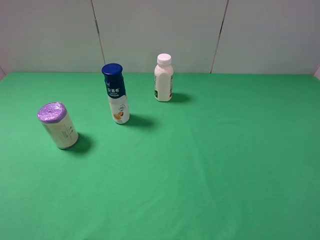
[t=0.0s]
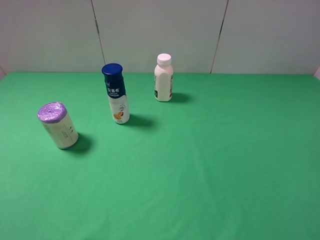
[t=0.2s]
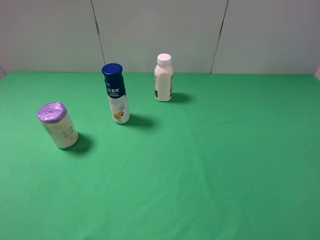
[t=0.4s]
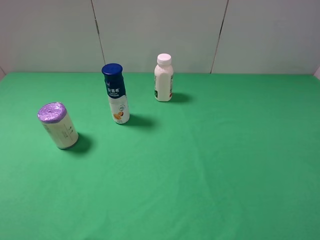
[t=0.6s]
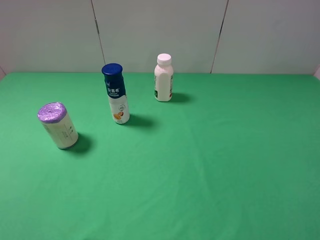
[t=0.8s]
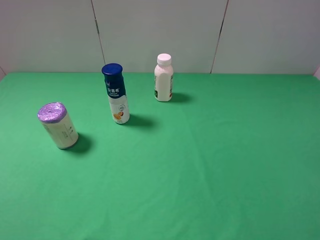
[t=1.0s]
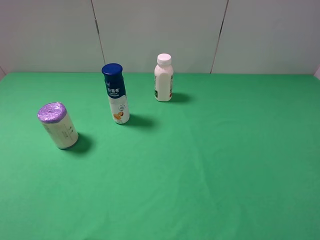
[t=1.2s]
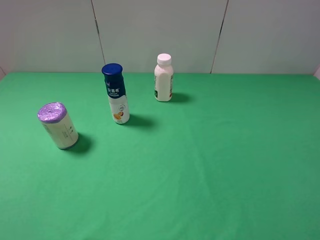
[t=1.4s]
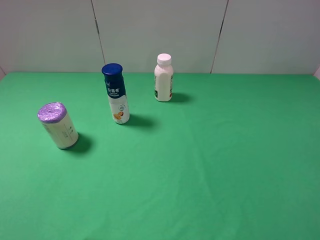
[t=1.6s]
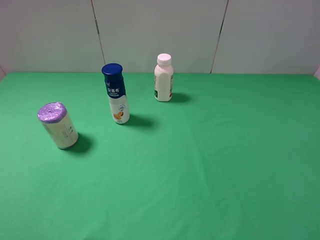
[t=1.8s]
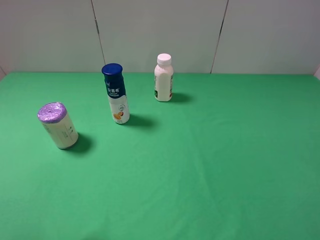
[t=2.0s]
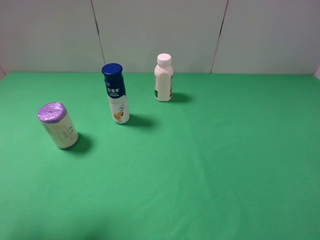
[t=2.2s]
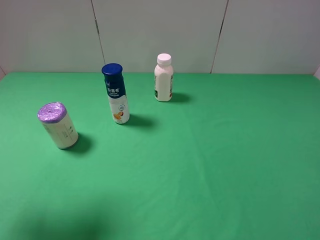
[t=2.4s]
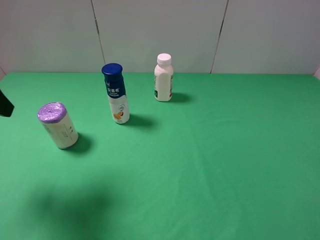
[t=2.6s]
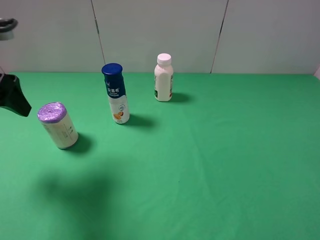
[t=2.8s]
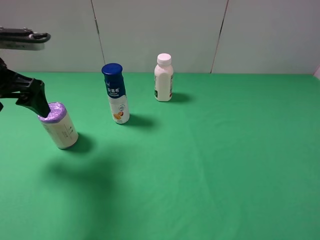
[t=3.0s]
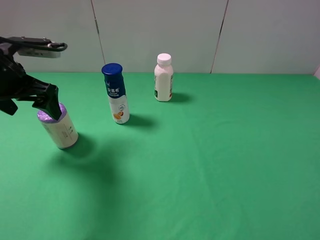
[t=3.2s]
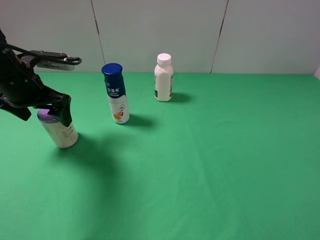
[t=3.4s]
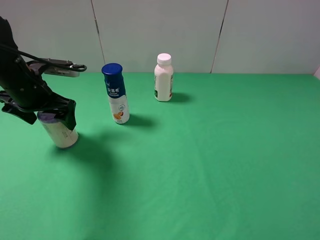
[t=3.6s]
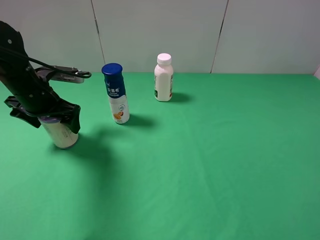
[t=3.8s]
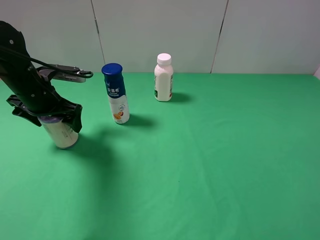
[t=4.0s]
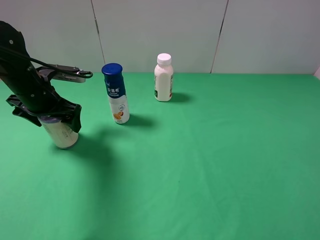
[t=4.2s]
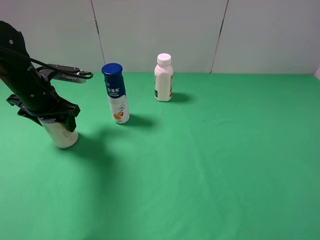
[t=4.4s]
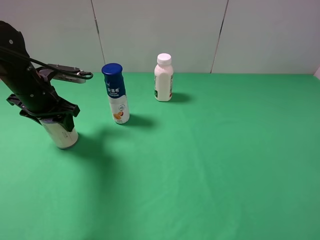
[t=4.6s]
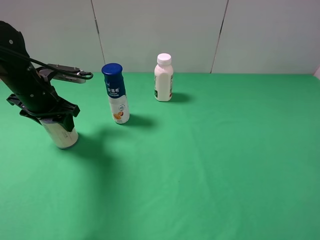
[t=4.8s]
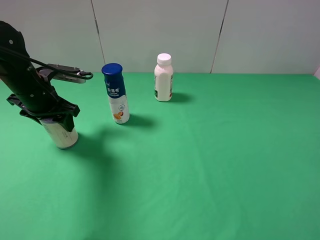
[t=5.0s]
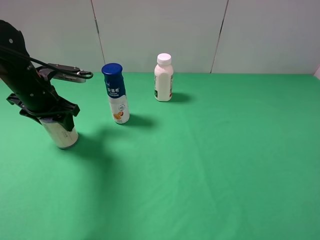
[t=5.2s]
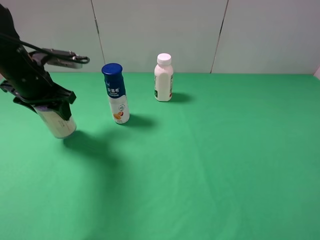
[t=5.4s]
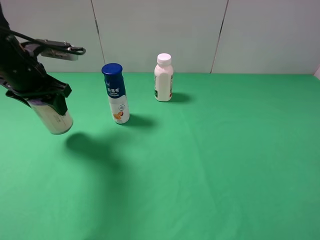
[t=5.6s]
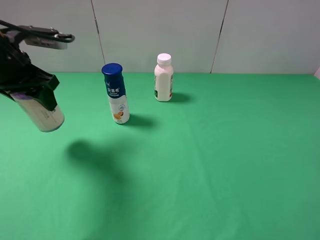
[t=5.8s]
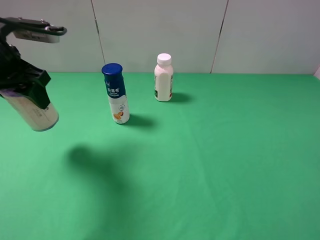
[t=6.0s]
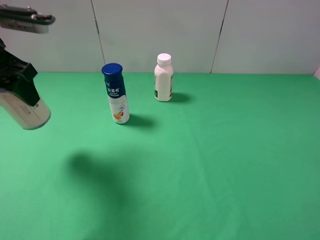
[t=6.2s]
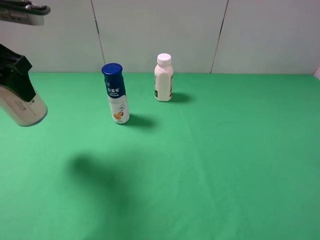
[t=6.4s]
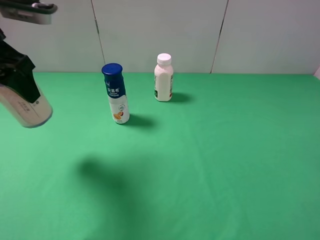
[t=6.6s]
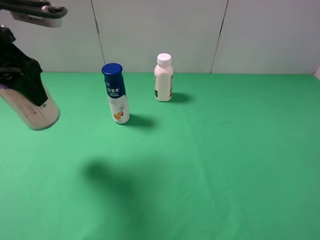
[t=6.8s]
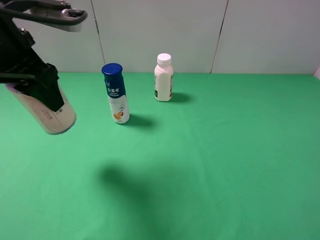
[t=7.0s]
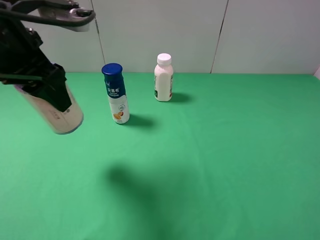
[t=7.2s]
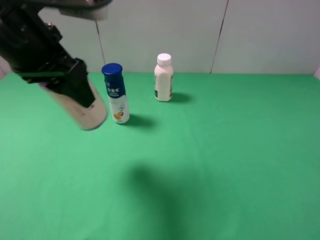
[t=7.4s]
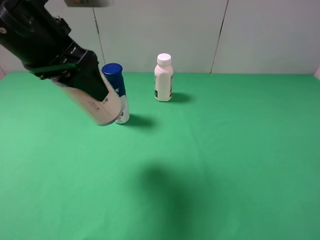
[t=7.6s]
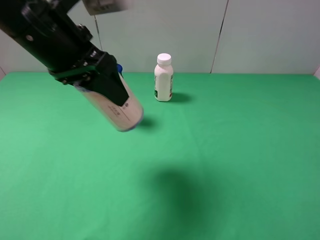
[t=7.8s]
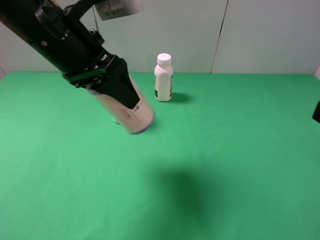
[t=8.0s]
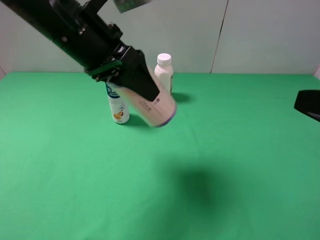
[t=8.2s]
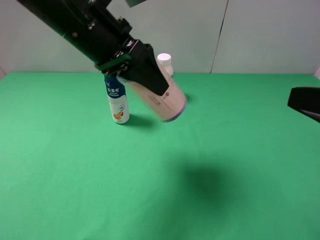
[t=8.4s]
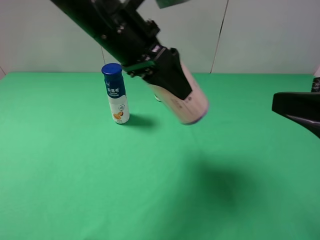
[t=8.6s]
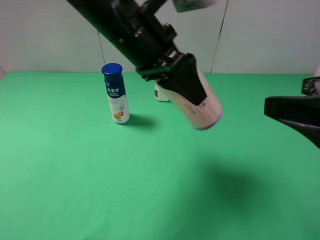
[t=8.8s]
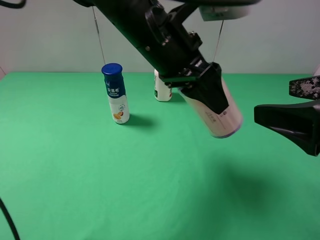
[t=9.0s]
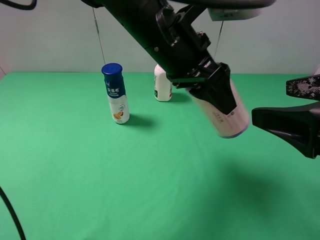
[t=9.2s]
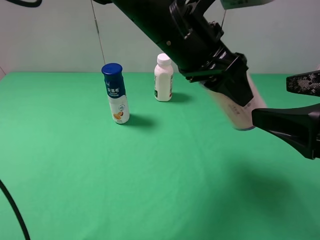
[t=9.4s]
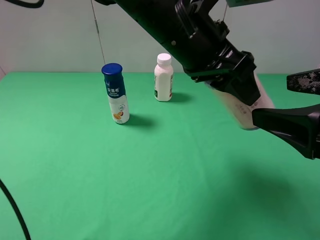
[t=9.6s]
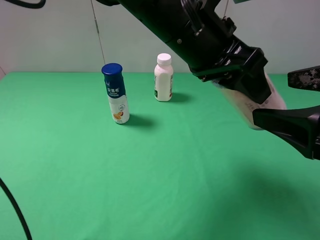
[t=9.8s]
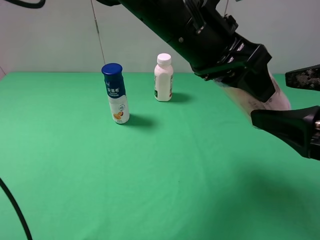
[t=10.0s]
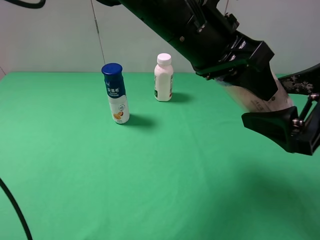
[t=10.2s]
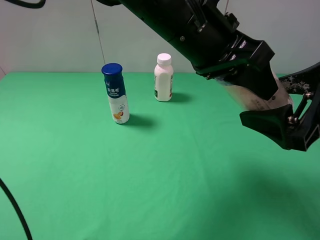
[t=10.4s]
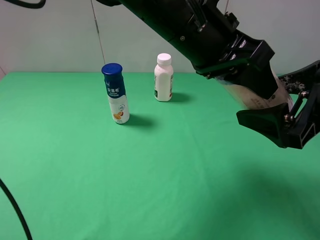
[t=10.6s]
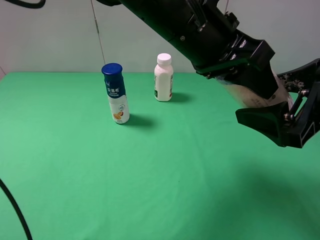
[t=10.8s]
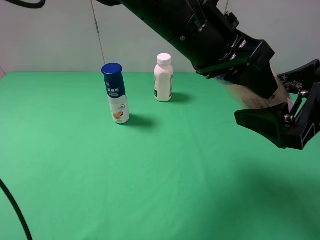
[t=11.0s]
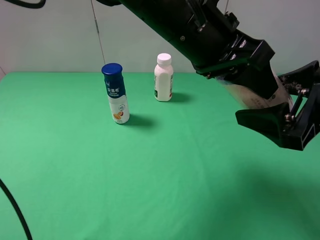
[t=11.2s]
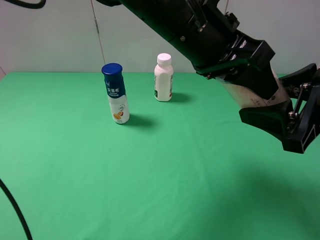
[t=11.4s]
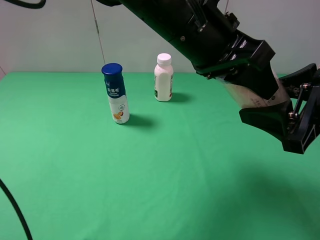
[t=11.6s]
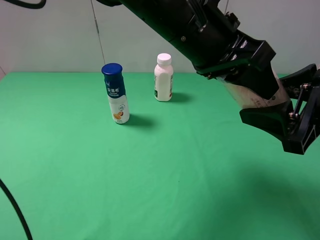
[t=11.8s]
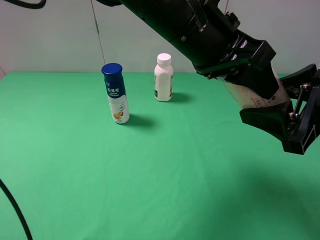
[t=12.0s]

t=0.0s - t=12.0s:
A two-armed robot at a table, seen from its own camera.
Task of the whole recording: use the left gripper to pick up the item and transfer it from the left gripper to the right gripper.
Step, t=0.0s - t=4.4s: Use the left gripper to grab the purple garbage bag on the left side of the table.
t=1.6s - t=3.0s: The left gripper moves forward, some 25 cm.
t=3.0s - t=4.4s: The left gripper goes approximately 10 cm downward and forward, and closes.
t=4.4s - t=6.0s: The left gripper moves upward, roughly 10 cm.
t=6.0s - t=7.6s: The left gripper goes approximately 10 cm to the right.
t=7.6s - t=9.0s: The left gripper heads to the right, covering roughly 15 cm. The right gripper shifts about 10 cm forward.
t=10.4s - t=12.0s: The right gripper closes its fingers.

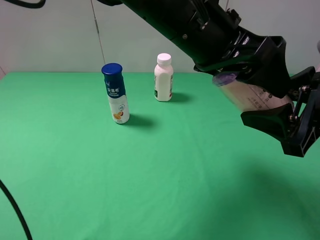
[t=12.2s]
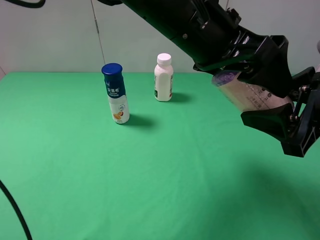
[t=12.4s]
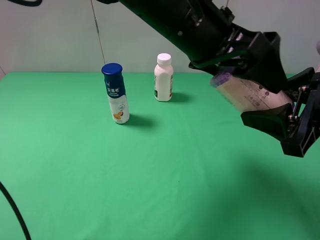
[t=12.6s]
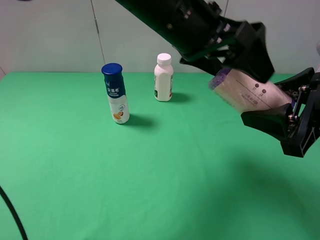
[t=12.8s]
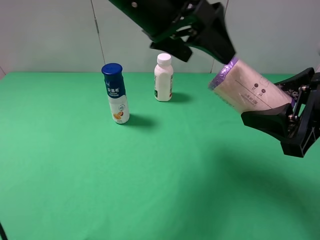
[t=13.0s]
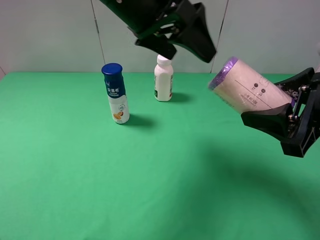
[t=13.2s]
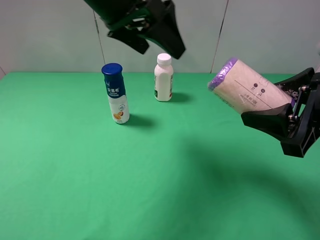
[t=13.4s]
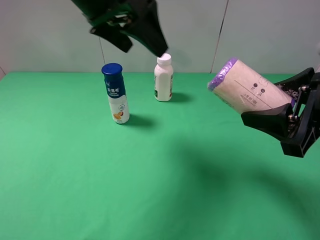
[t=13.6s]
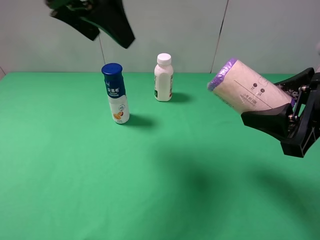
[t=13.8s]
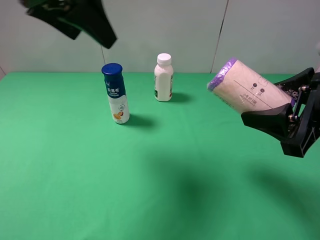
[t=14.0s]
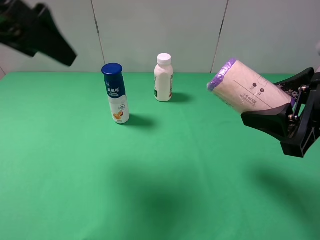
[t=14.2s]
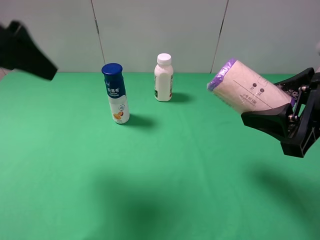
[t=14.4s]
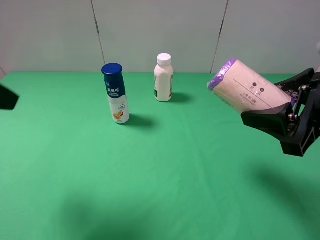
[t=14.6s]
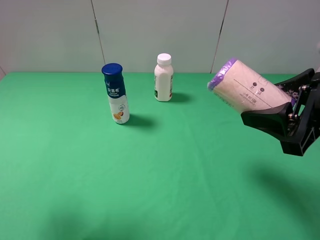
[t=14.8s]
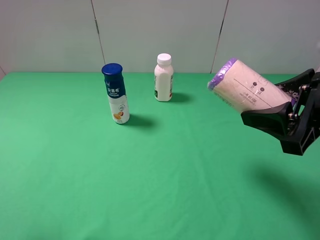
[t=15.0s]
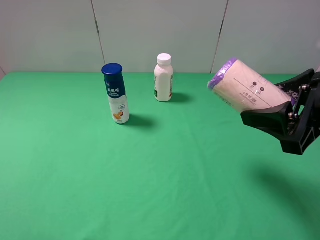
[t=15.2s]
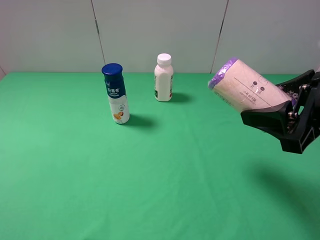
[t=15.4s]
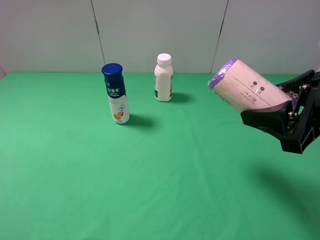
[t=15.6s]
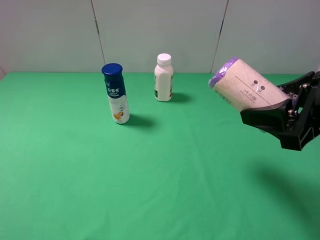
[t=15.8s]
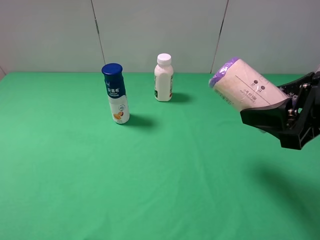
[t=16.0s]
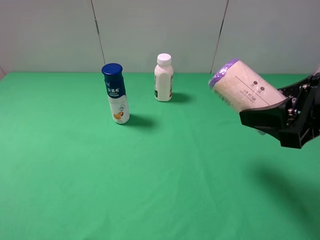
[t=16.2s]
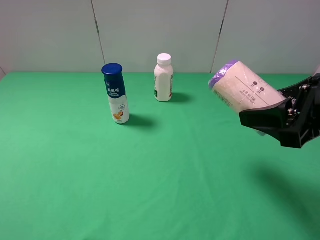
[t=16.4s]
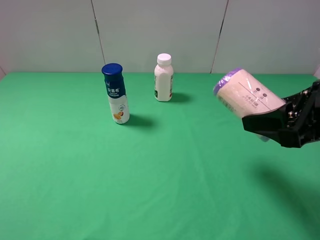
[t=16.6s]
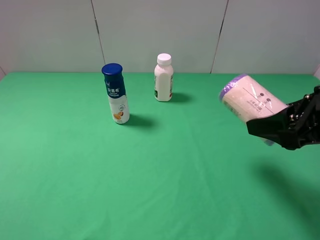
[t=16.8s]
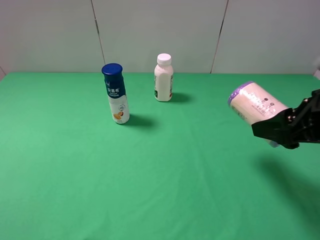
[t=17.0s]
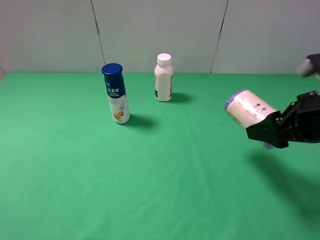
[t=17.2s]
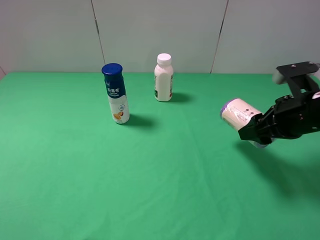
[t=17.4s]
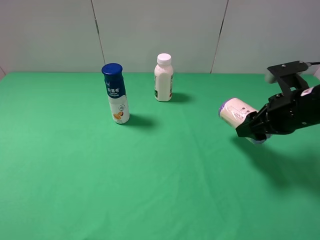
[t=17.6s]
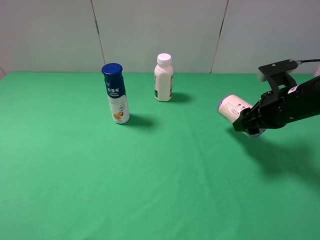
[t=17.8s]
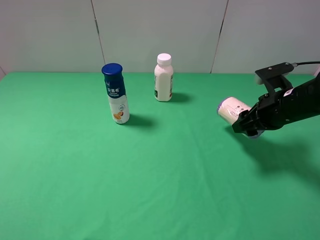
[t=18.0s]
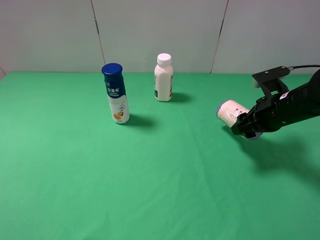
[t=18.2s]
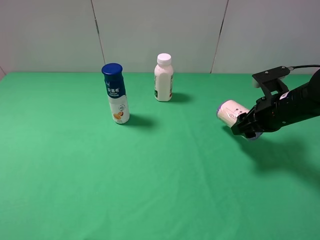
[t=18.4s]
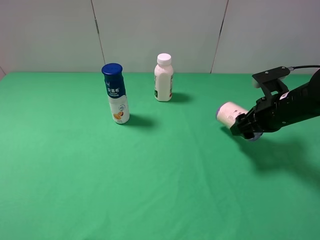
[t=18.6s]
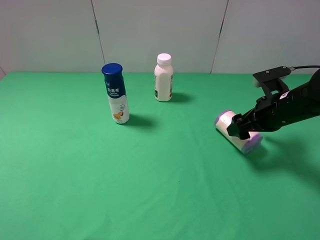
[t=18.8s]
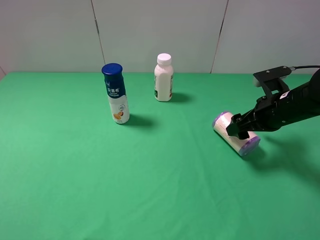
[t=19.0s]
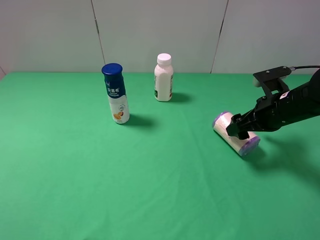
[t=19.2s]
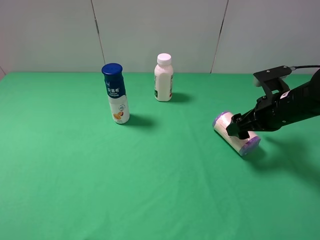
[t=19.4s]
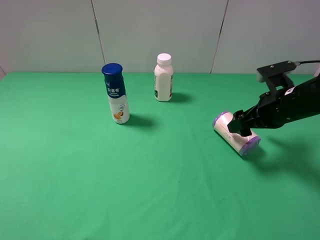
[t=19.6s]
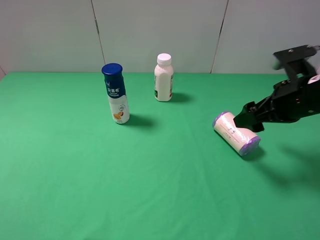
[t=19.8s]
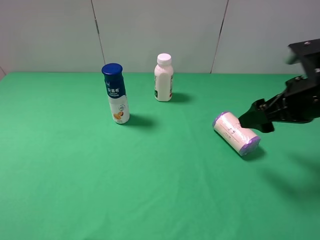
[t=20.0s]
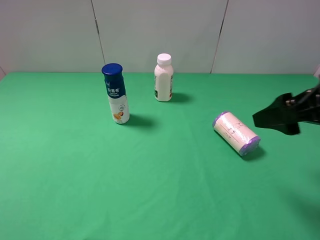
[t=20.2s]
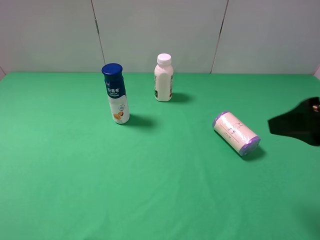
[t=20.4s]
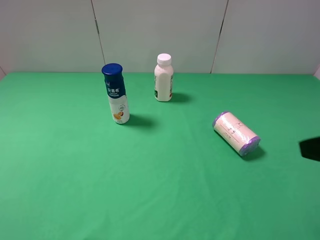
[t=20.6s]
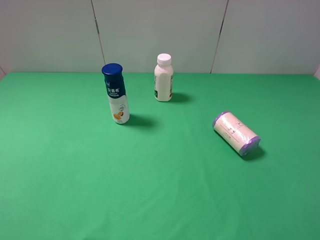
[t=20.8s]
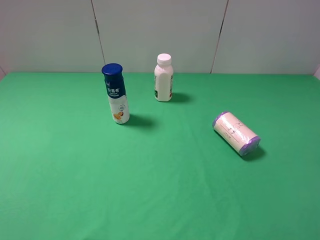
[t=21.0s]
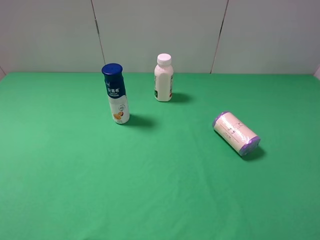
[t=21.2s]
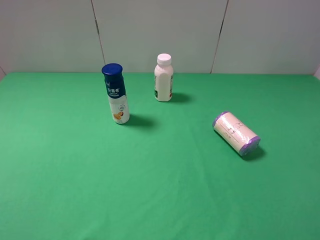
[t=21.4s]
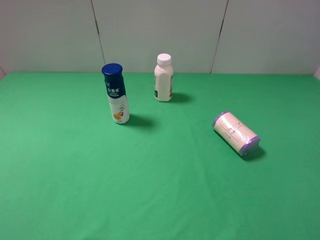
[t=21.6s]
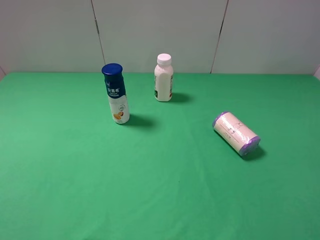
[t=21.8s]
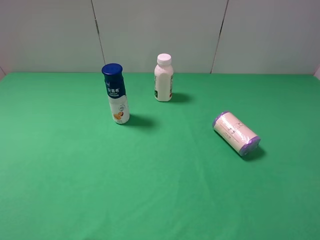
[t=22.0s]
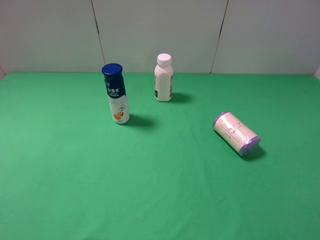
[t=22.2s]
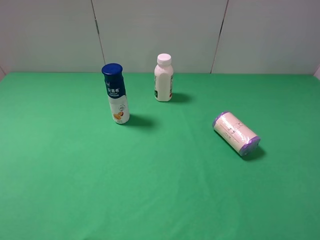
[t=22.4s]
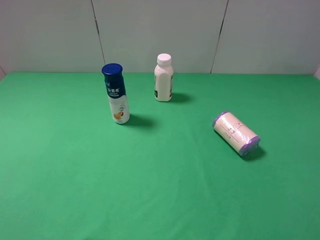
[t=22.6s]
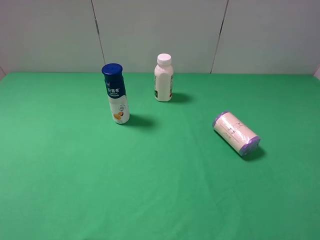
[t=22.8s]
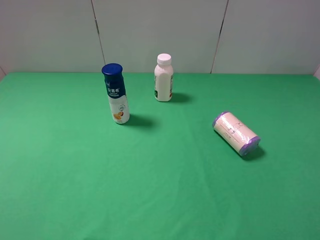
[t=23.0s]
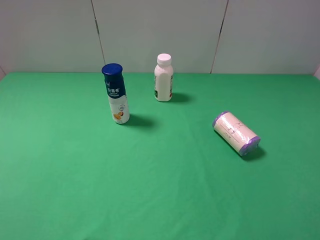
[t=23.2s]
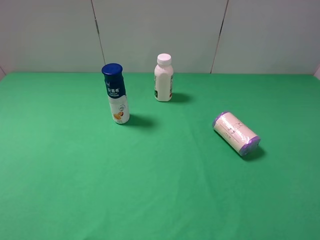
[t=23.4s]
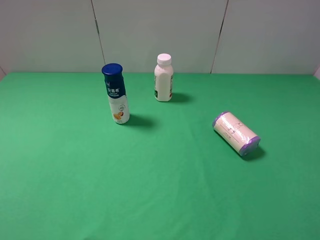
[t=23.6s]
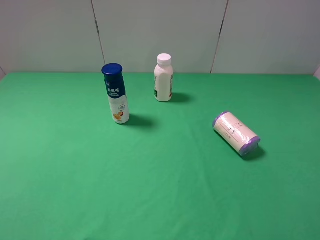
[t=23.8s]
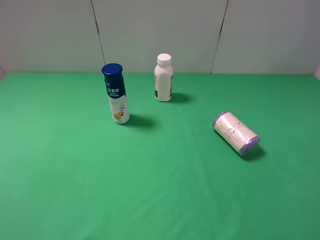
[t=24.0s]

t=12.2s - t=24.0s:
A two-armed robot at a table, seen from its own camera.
Task of the whole recording: use the left gripper to pick up the item and transfer it from the left gripper to the right gripper.
Step, t=12.8s - t=18.8s: The right gripper places purple garbage bag on the right side of the table.
t=12.2s - t=13.6s: The left gripper travels to the left by about 15 cm.
t=13.6s - t=15.2s: The left gripper shifts some 35 cm backward and to the left.
t=15.2s - t=16.6s: The grippers move only a little.
t=16.6s - t=18.2s: The right gripper moves forward and downward, roughly 15 cm.
t=18.2s - t=19.6s: The right gripper opens its fingers.
t=19.6s - t=21.0s: The right gripper travels backward and upward by approximately 25 cm.
t=22.6s - t=24.0s: Both grippers stay put.
